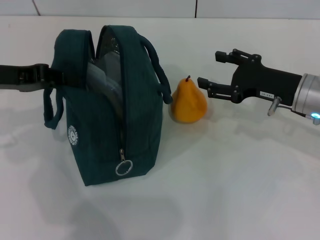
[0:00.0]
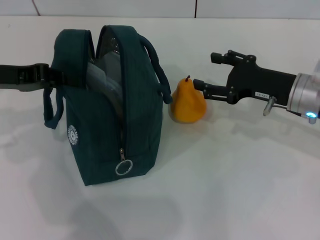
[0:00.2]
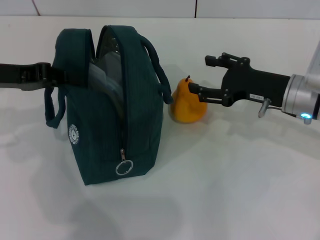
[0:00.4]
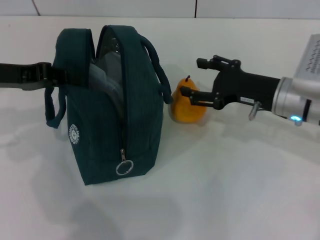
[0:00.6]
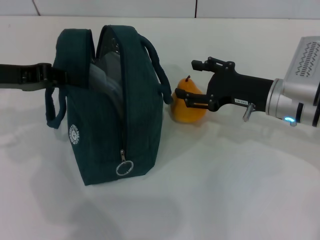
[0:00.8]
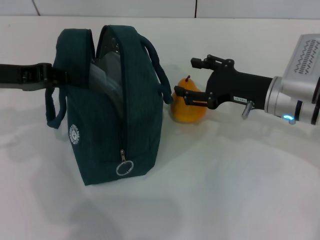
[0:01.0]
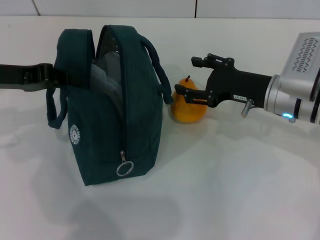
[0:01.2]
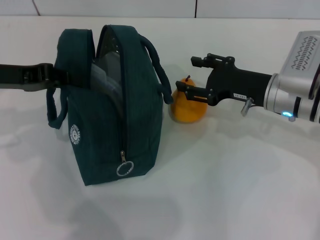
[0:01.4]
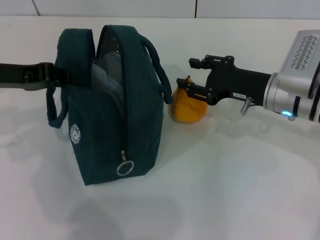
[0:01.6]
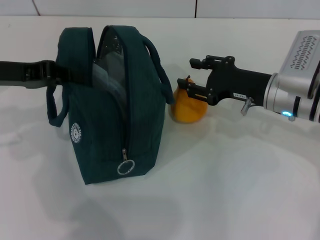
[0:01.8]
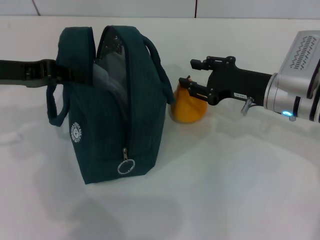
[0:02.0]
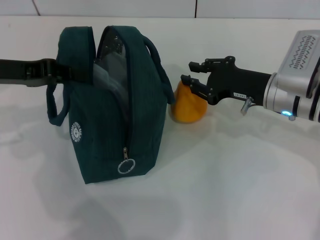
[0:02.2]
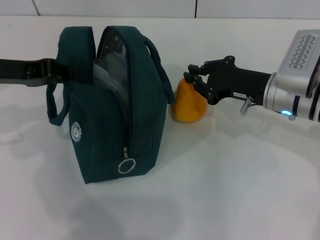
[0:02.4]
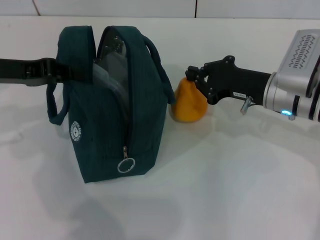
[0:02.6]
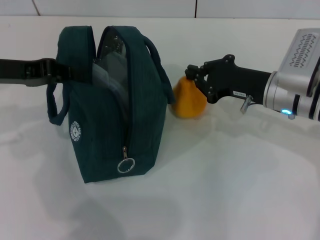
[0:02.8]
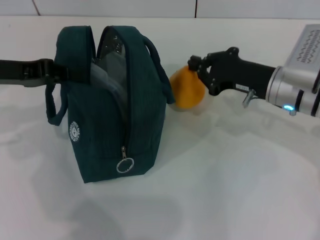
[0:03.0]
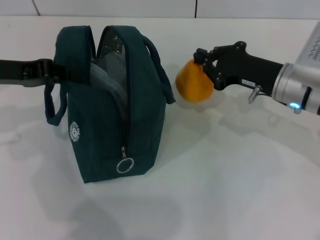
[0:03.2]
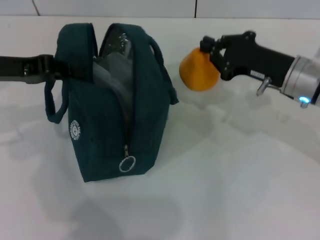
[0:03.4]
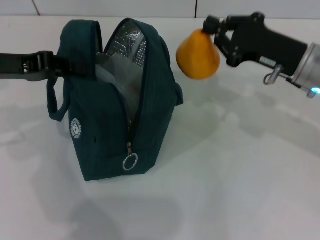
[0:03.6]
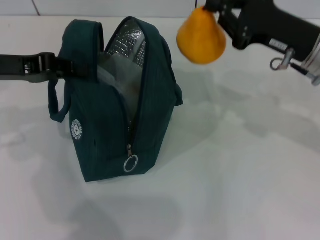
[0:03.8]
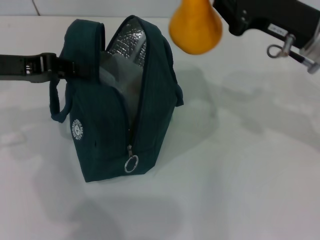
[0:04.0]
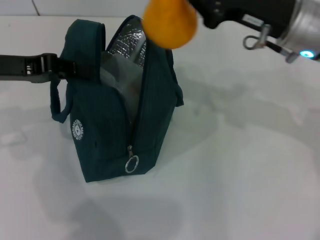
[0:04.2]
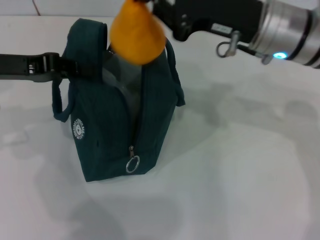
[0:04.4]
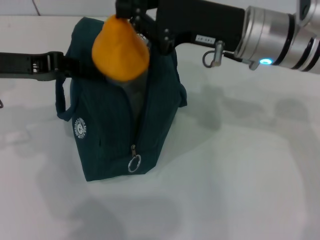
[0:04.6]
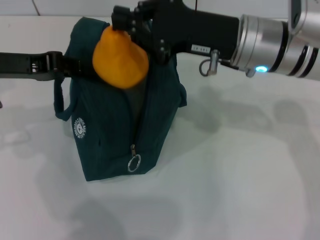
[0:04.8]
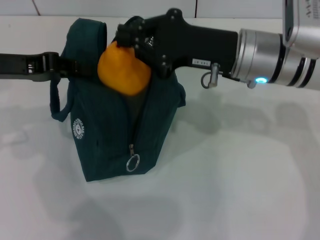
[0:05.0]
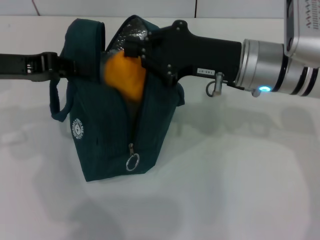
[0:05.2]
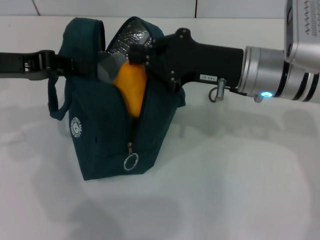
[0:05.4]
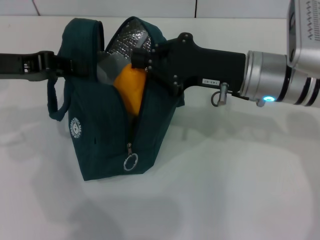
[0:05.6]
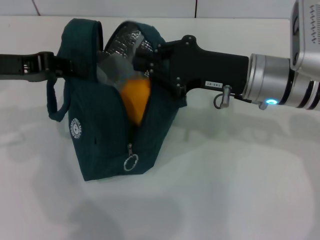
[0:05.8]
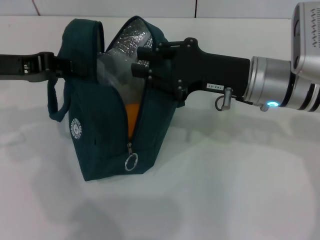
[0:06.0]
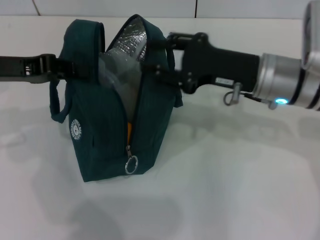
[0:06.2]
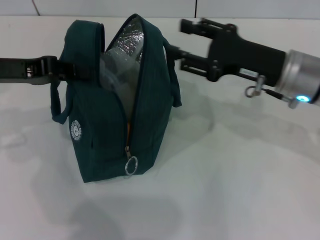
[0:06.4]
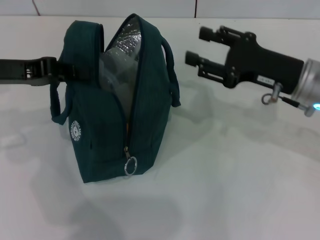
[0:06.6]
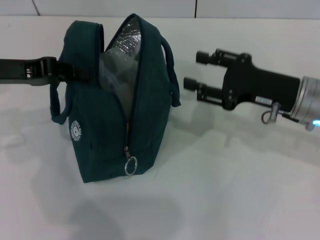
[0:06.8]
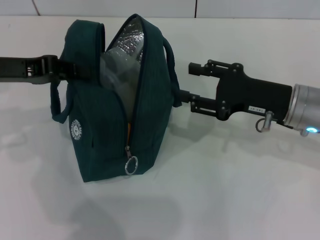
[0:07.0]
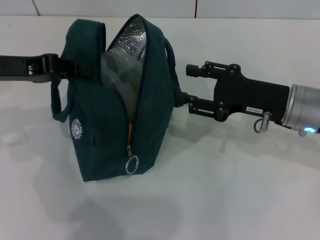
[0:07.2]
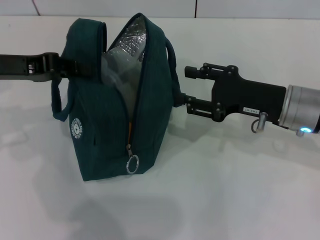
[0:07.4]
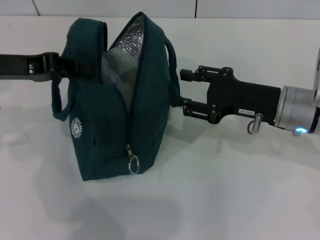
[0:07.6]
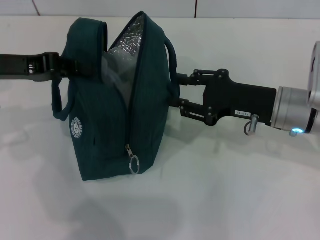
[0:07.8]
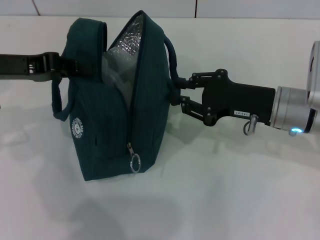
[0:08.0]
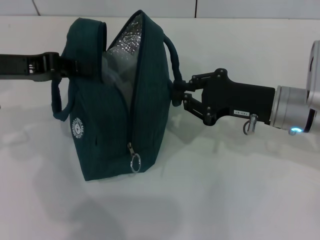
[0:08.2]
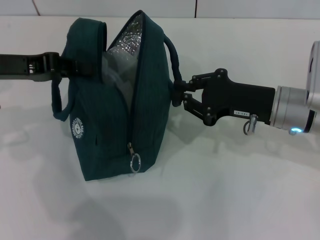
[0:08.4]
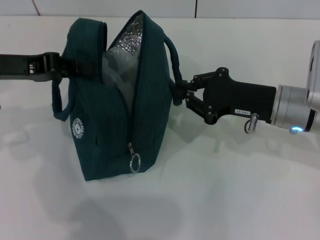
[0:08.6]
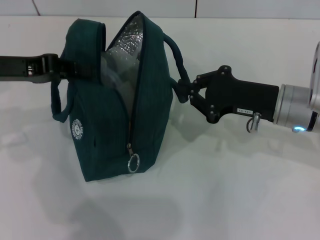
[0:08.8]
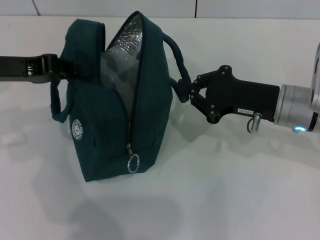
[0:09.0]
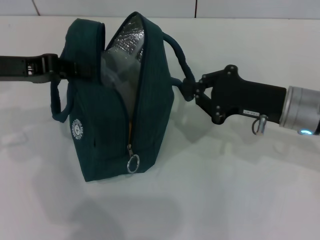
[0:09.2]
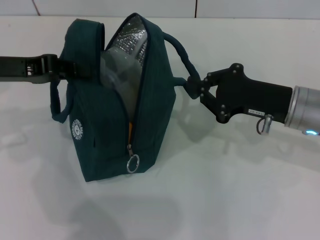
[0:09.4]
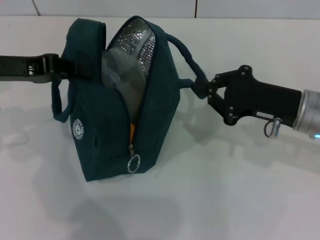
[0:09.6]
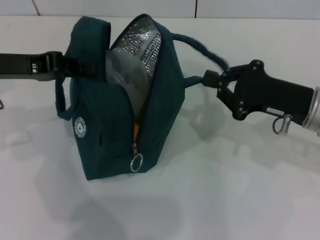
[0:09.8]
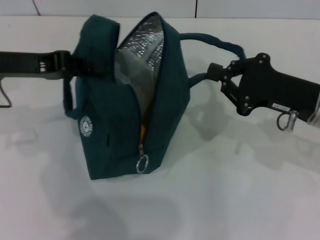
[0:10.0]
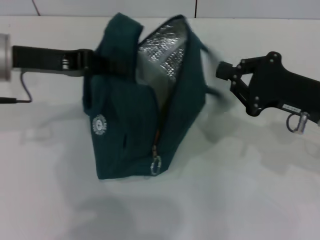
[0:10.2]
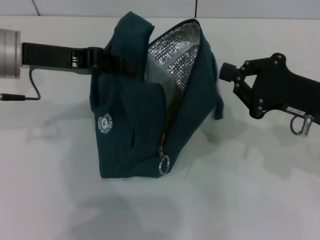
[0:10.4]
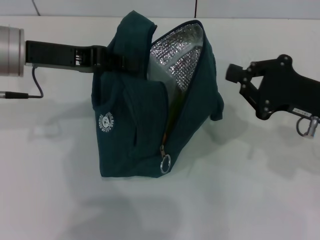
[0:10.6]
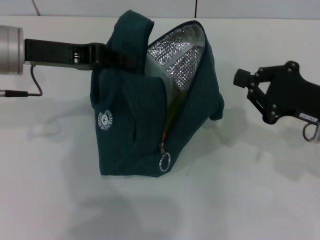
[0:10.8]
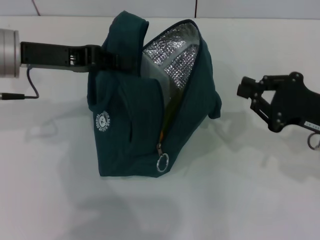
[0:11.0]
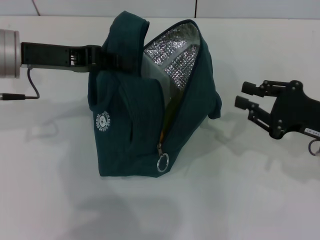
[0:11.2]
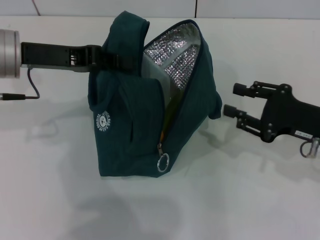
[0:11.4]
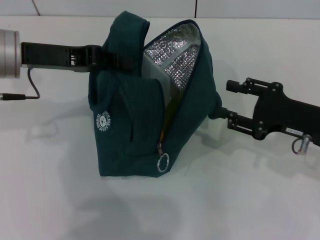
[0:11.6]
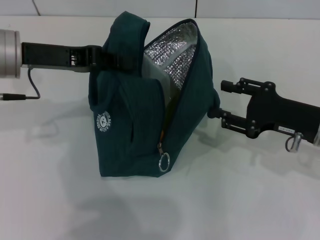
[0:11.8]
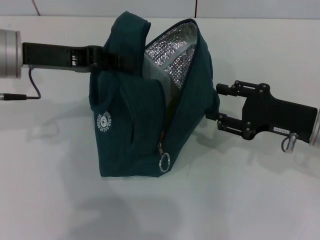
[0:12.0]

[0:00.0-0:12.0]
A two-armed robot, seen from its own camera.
Step, 0:00.0 to 0:02.6: Grab the pear with your right hand.
0:00.0 to 0:01.6: The grippers stay close to where they were, moving slightly.
0:01.6 to 0:03.0: The right gripper closes up.
0:03.0 to 0:04.4: The right gripper travels upward by roughly 10 cm.
0:04.4 to 0:06.0: The right gripper goes about 5 cm downward.
0:06.0 to 0:07.6: The right gripper shifts by approximately 5 cm, and opens its fingers.
0:07.6 to 0:09.0: The right gripper closes its fingers.
0:09.0 to 0:10.4: Both grippers travel together to the right, approximately 5 cm.
0:10.4 to 0:12.0: The right gripper opens.

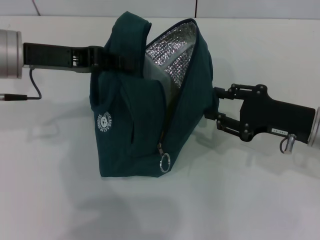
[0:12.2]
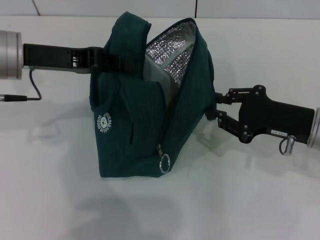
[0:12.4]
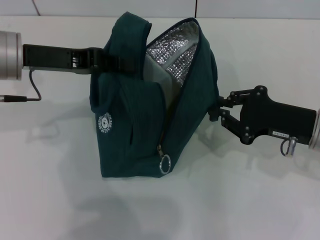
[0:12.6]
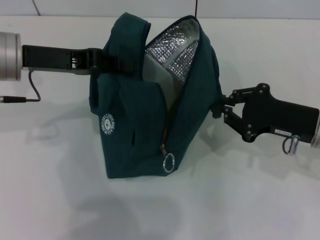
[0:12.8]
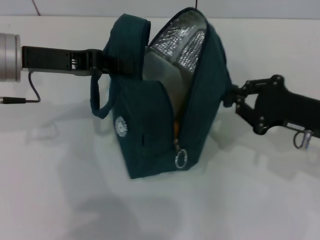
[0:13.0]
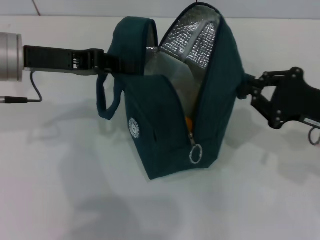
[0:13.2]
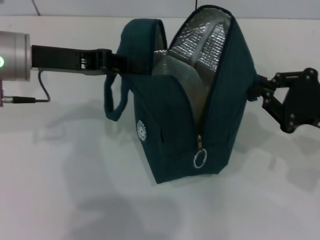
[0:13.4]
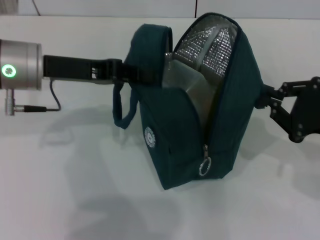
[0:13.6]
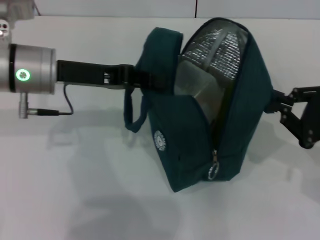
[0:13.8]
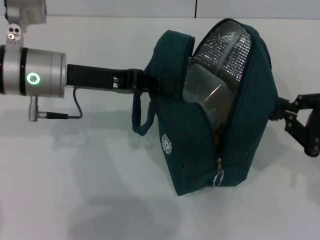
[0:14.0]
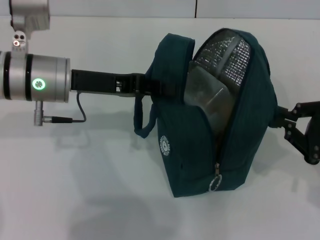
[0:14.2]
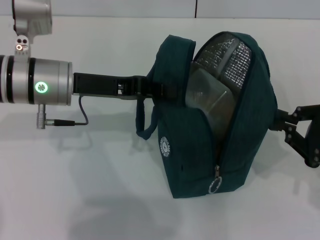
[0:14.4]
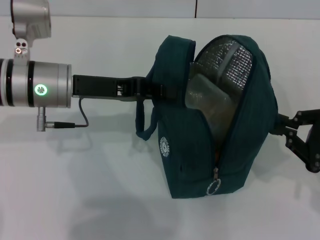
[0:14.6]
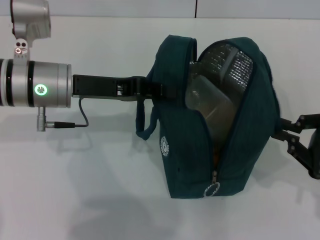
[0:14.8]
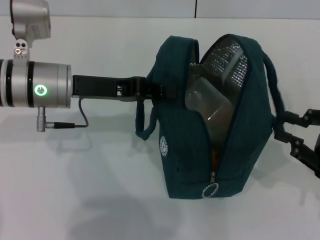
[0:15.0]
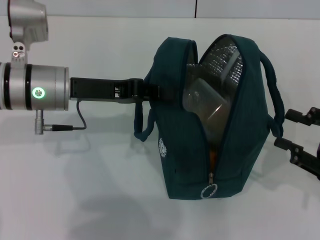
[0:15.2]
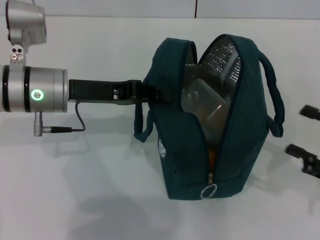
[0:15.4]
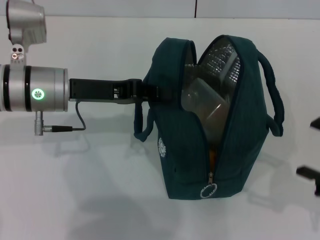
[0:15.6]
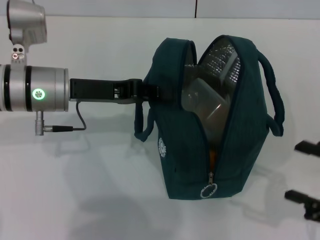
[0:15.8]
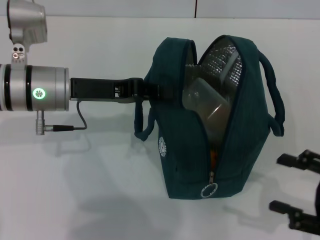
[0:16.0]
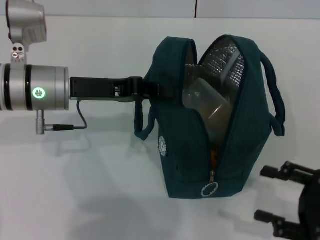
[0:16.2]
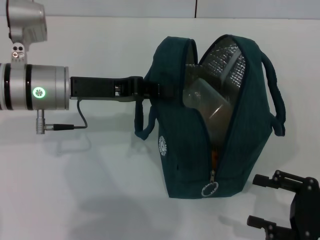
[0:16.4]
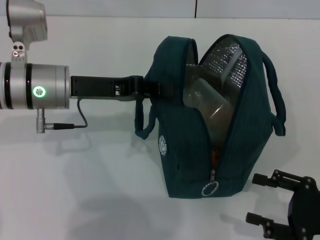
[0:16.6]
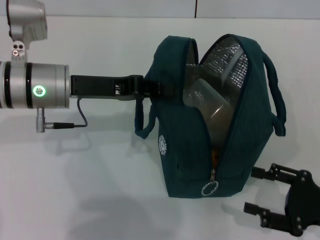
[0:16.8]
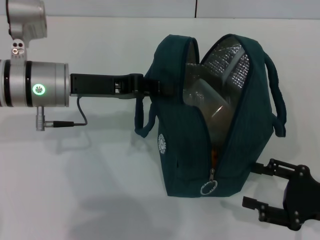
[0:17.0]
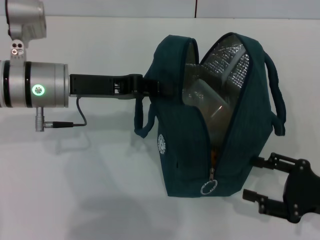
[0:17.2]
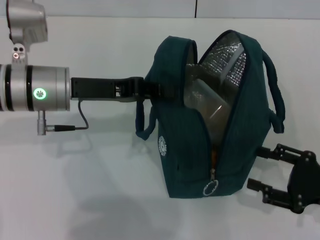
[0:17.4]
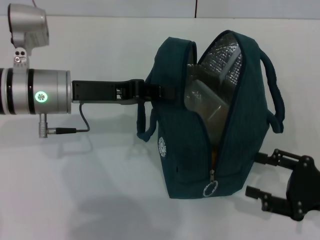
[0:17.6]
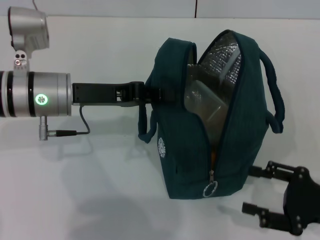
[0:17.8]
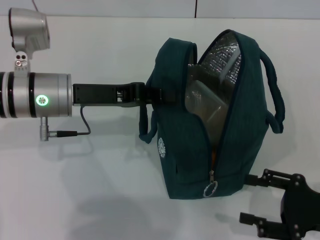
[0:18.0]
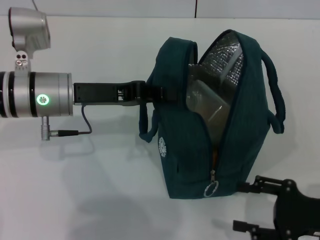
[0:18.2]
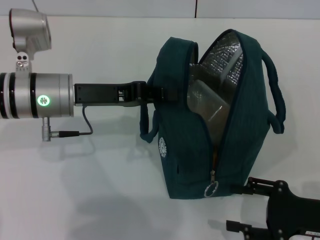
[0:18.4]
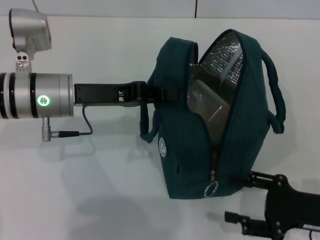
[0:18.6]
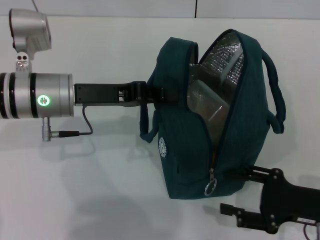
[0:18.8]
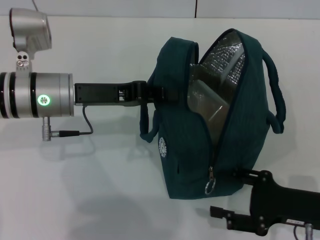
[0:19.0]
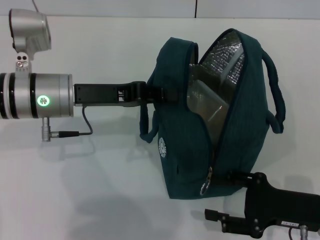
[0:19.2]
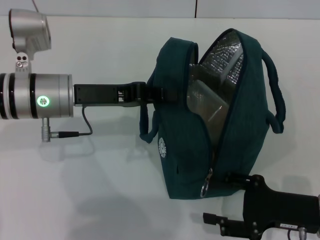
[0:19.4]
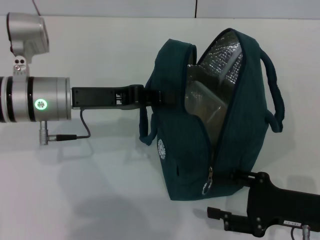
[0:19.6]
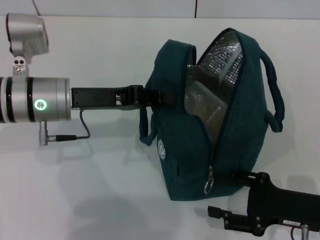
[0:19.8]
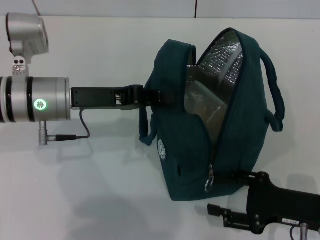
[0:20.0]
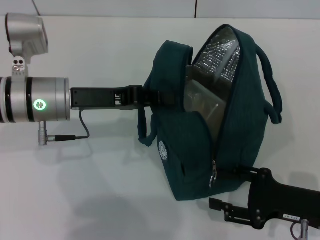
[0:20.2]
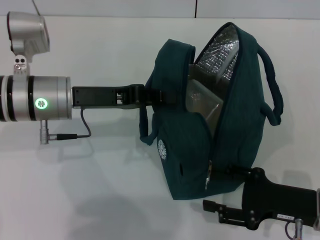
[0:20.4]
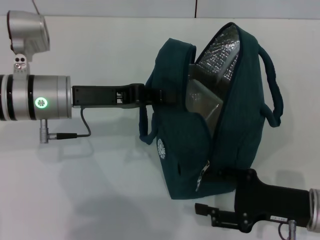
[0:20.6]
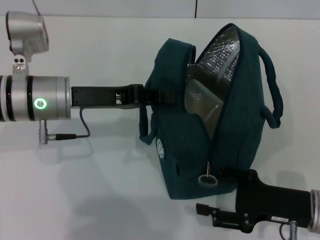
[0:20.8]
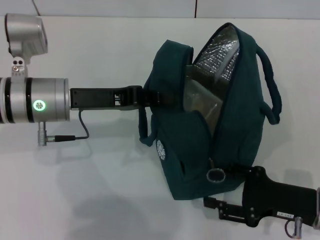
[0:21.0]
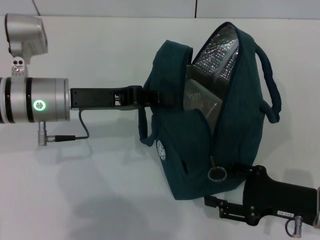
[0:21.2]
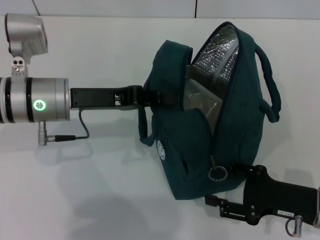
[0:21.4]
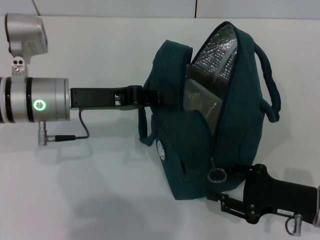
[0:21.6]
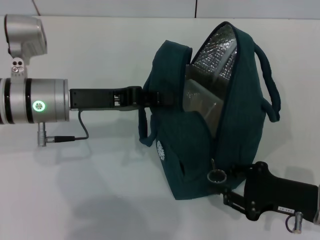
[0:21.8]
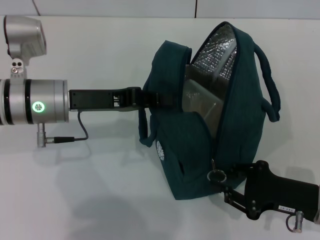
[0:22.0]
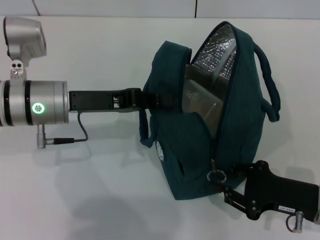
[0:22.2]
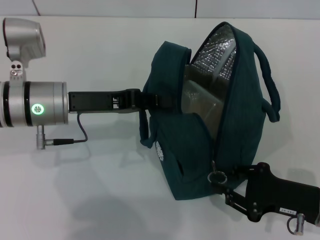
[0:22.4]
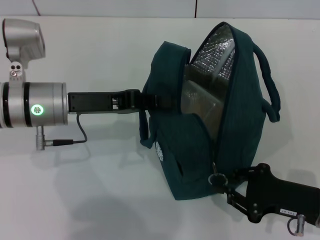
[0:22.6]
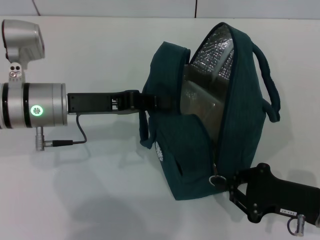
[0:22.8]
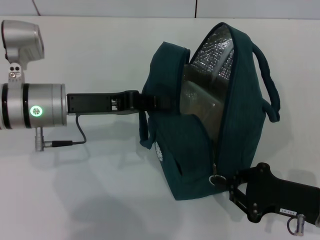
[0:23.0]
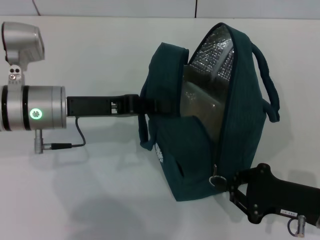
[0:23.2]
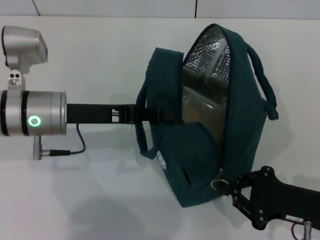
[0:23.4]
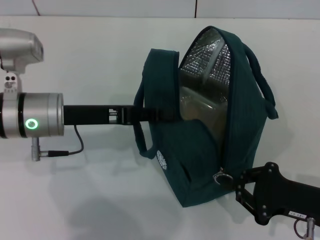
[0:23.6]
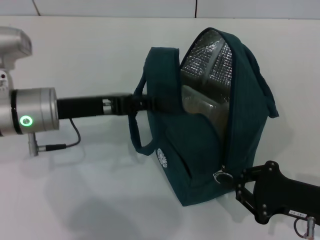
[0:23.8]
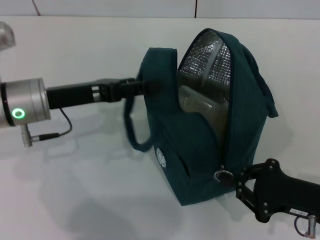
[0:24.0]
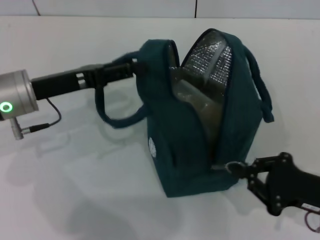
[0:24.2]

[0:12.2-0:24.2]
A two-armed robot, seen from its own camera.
Step, 0:12.2 to 0:15.0: Hold the lunch bag with your right hand.
0:12.2 to 0:13.8: The right gripper heads to the right, covering roughly 5 cm, and closes up.
0:15.2 to 0:16.6: The right gripper goes about 5 cm downward, and opens up.
0:16.6 to 0:19.8: The grippers make only small movements.
0:19.8 to 0:21.2: The grippers stay close to where they were, moving slightly.
0:21.2 to 0:22.6: The right gripper closes up.
0:22.6 to 0:24.2: The left gripper opens up.
